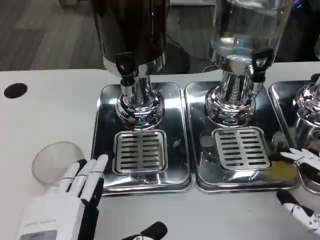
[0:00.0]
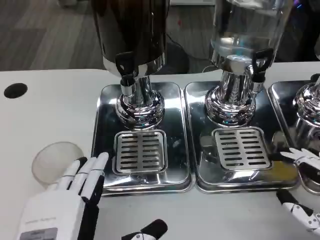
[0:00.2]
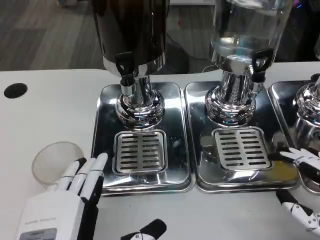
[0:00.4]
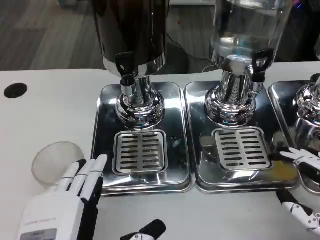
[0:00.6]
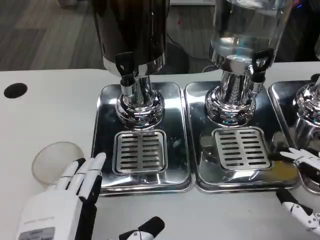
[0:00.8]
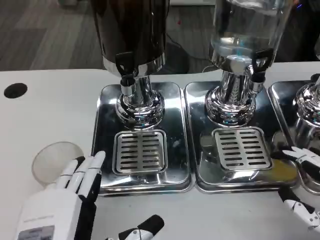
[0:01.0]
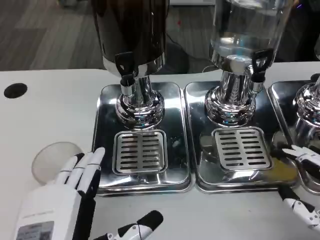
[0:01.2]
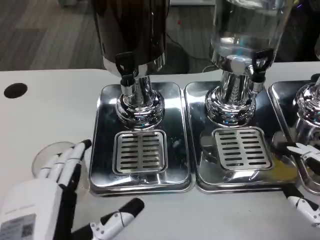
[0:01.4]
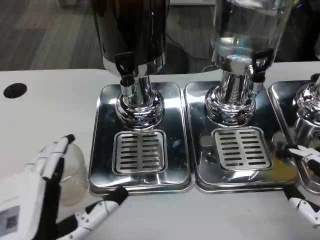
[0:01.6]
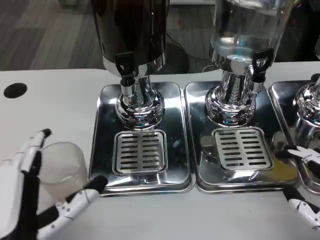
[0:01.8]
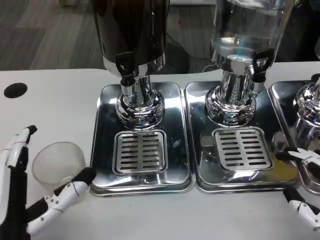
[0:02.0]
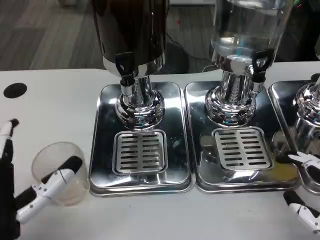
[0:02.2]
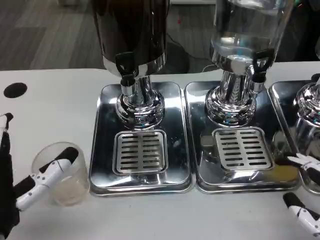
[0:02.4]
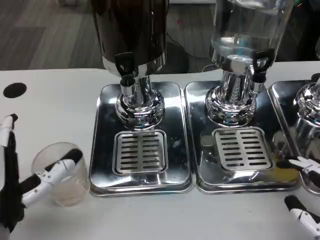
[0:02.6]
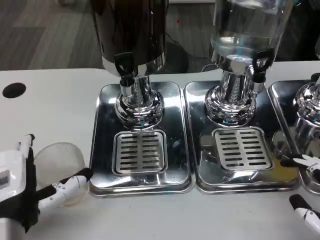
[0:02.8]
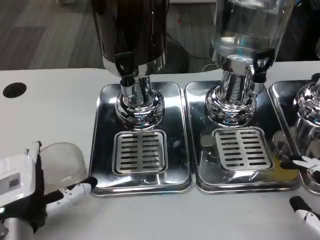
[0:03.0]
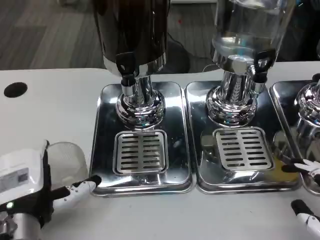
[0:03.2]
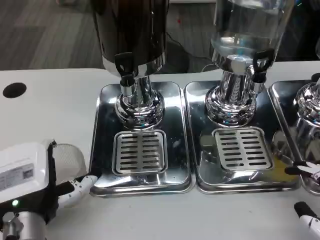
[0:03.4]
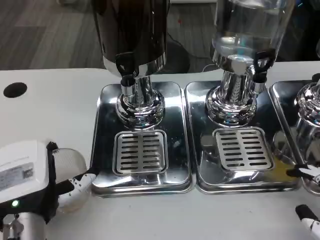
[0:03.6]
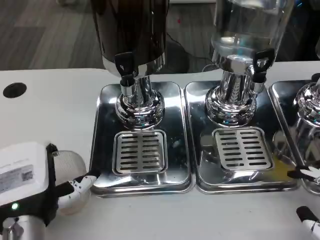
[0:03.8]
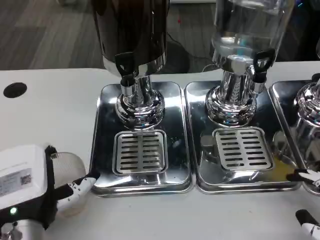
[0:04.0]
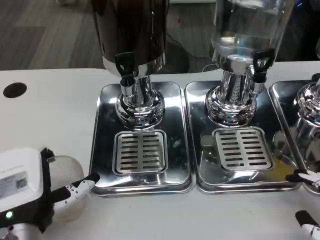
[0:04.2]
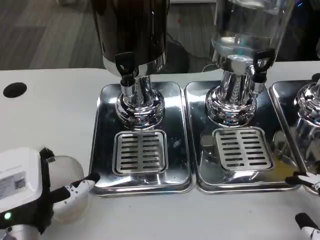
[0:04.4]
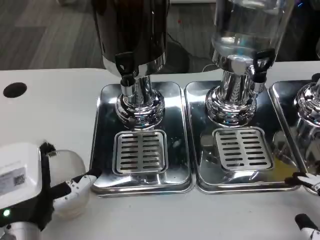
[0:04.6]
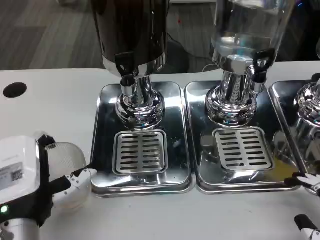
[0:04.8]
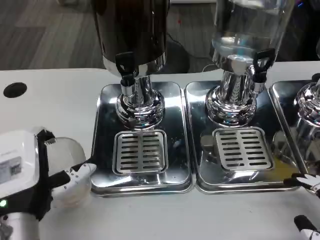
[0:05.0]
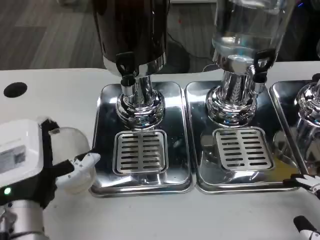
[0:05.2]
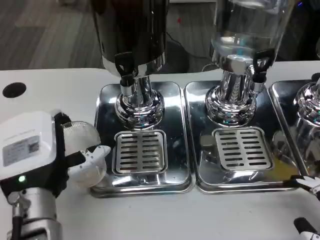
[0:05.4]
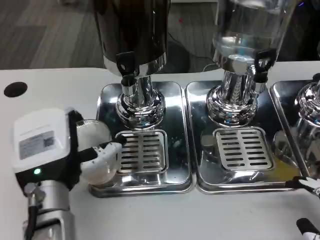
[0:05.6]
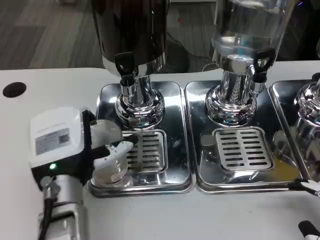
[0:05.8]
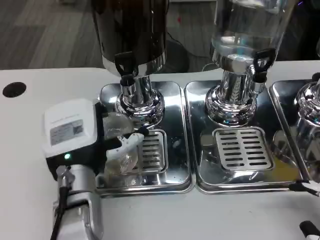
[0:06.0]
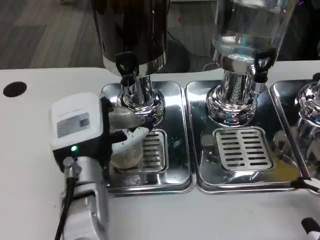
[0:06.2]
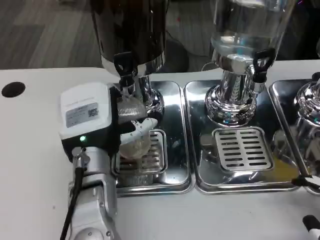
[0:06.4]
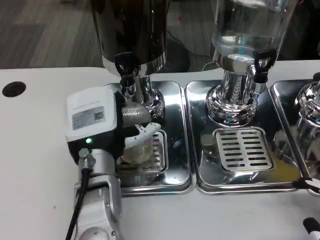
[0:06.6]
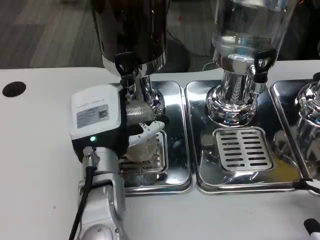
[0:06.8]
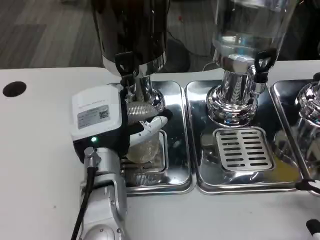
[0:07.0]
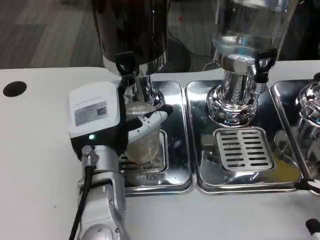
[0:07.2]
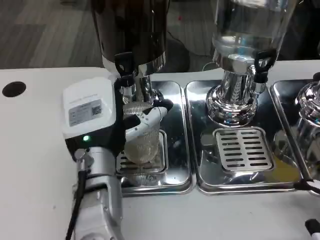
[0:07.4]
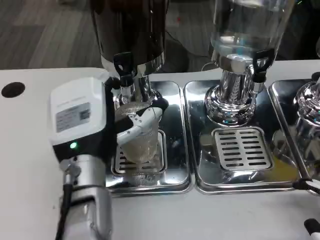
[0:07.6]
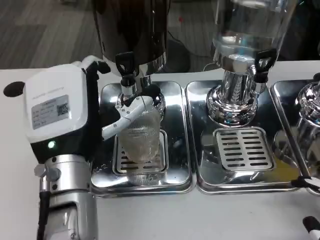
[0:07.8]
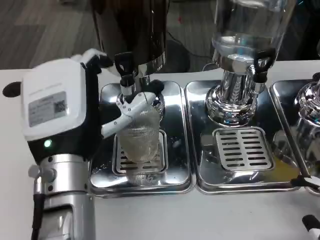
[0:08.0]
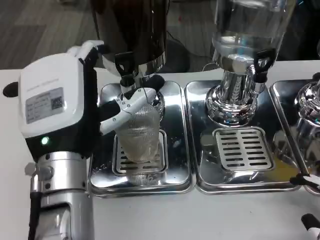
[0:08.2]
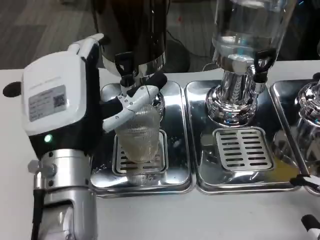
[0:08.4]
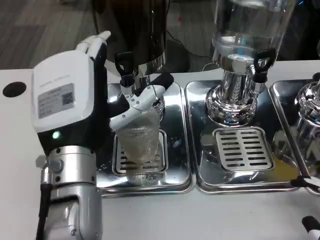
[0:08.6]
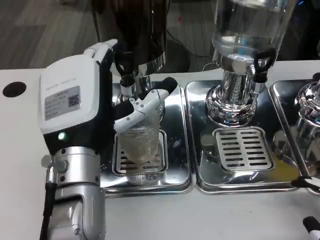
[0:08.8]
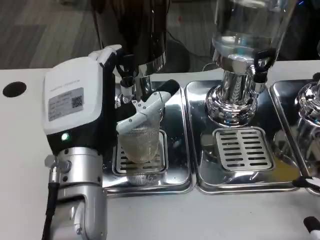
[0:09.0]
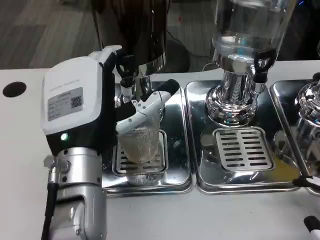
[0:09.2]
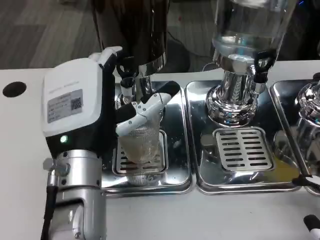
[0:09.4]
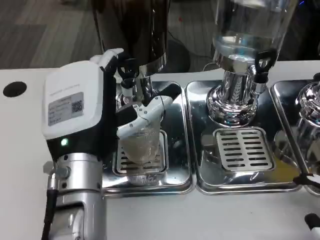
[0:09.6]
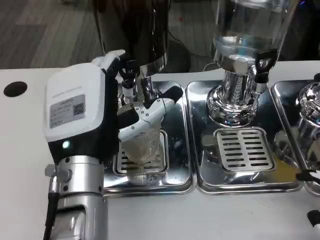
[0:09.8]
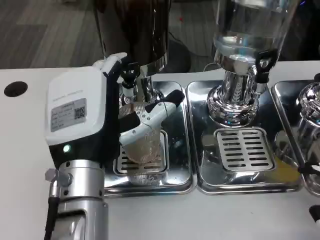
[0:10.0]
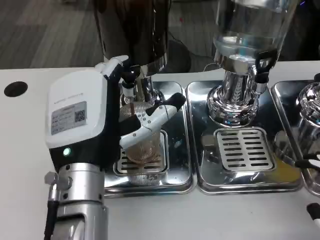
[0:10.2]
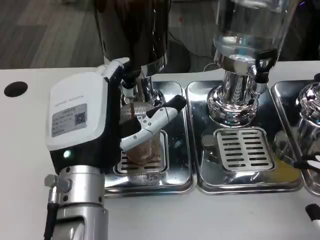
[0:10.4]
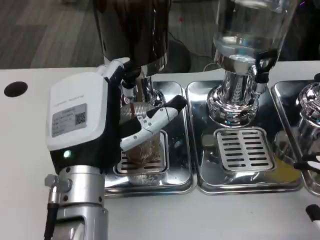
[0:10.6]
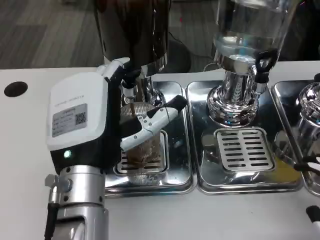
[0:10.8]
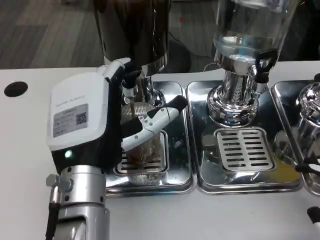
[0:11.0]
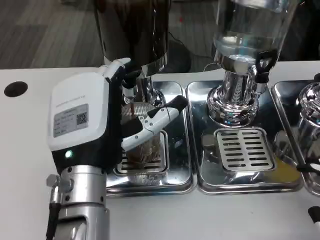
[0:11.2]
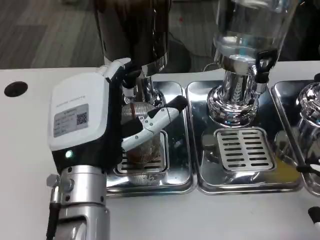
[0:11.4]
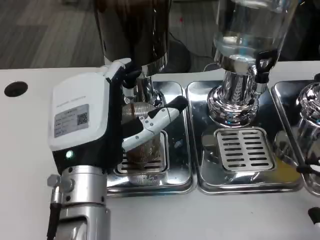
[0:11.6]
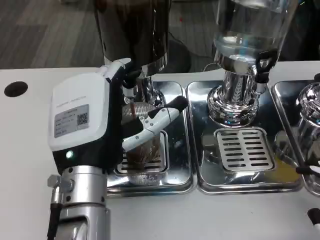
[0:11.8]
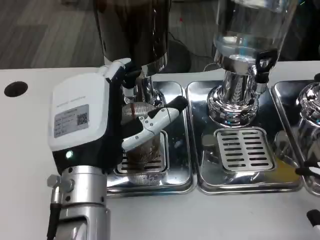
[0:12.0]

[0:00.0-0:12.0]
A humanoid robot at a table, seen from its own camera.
Task of the whole recording: Grasp the cup under the faucet to collect the drink, then remove the cup.
0:00.0 to 0:01.6: The hands move only a little.
0:01.6 to 0:03.0: The left hand is displaced forward by about 5 cm.
0:03.0 to 0:04.4: The hands make only small movements.
0:04.4 to 0:06.0: The left hand moves forward and to the right, some 10 cm.
0:06.0 to 0:07.6: There are only small adjustments of the hands.
0:10.4 to 0:12.0: Both hands stay put.

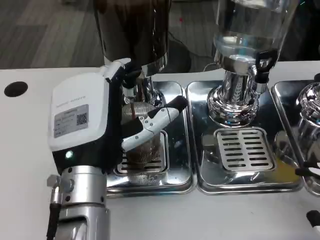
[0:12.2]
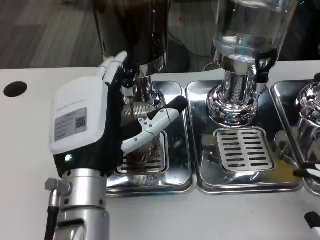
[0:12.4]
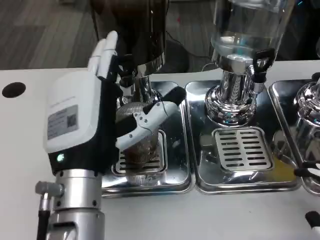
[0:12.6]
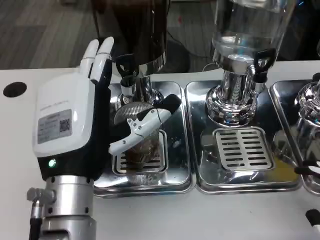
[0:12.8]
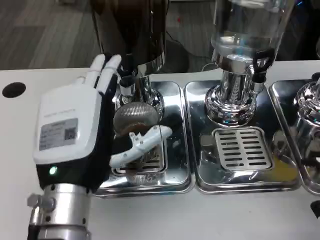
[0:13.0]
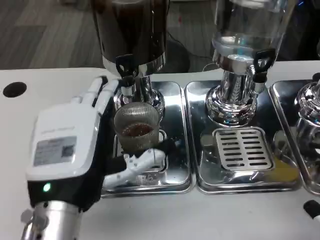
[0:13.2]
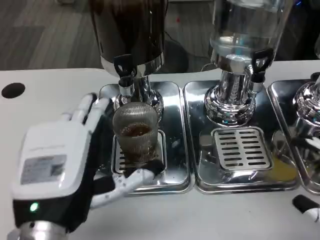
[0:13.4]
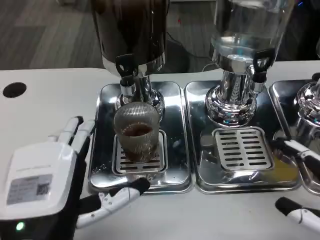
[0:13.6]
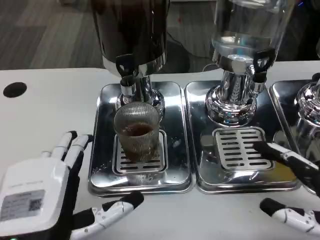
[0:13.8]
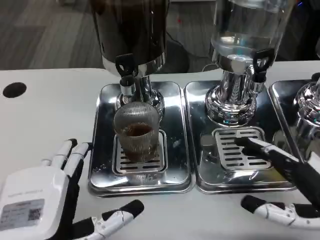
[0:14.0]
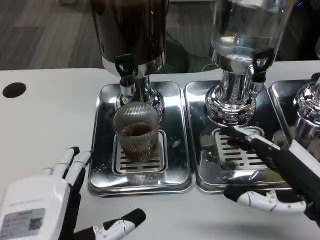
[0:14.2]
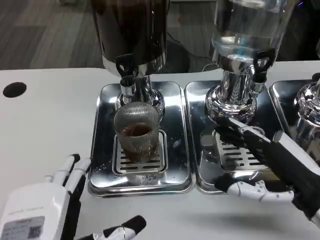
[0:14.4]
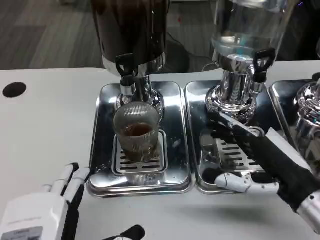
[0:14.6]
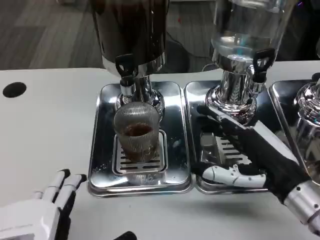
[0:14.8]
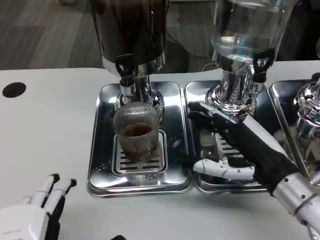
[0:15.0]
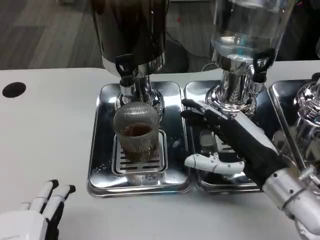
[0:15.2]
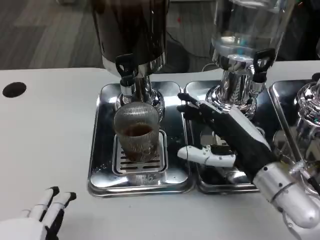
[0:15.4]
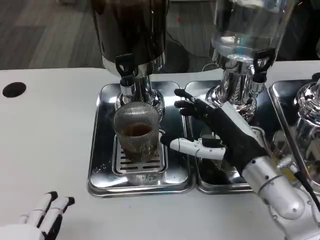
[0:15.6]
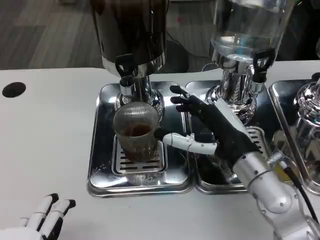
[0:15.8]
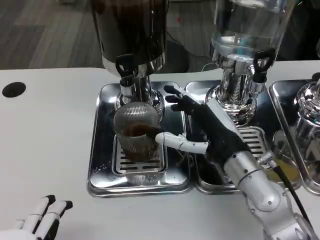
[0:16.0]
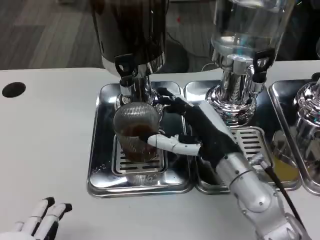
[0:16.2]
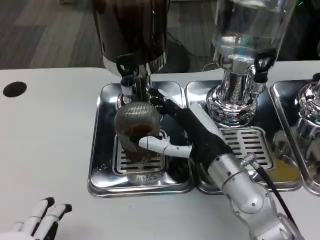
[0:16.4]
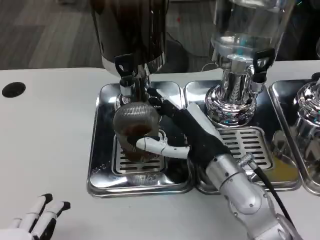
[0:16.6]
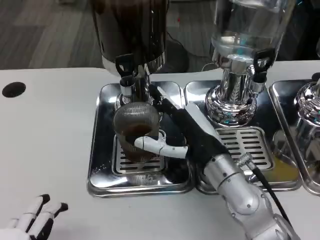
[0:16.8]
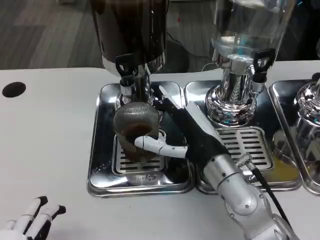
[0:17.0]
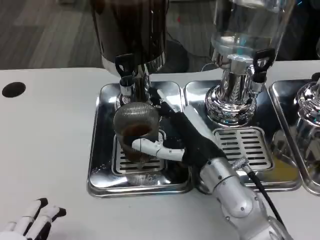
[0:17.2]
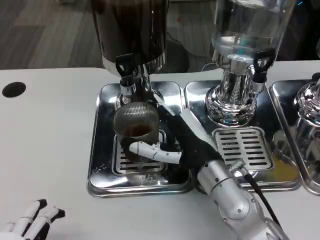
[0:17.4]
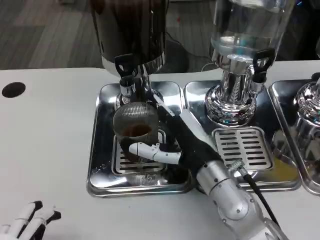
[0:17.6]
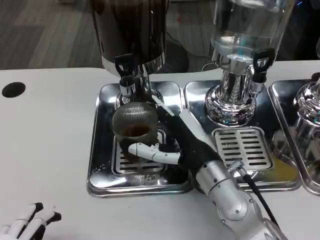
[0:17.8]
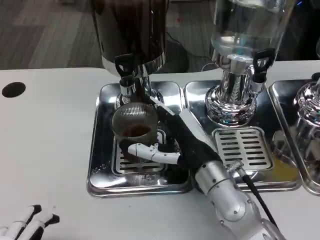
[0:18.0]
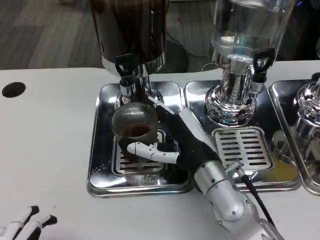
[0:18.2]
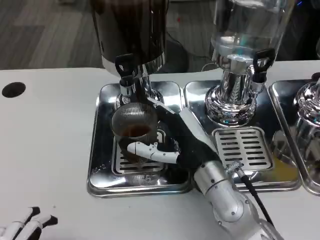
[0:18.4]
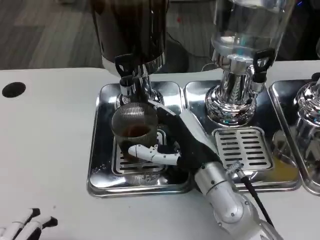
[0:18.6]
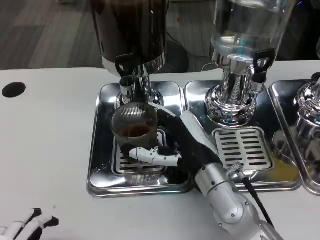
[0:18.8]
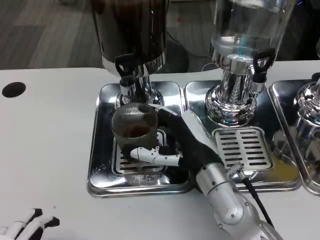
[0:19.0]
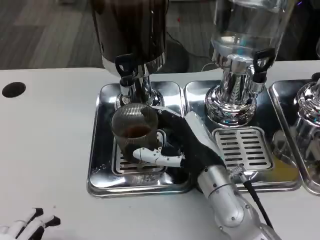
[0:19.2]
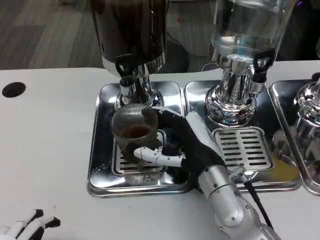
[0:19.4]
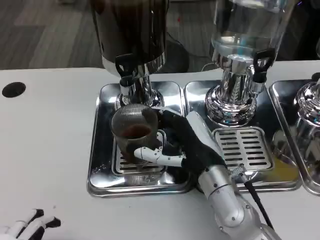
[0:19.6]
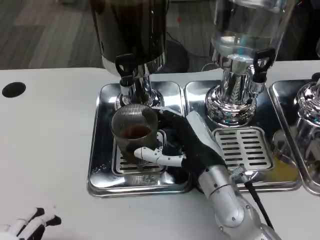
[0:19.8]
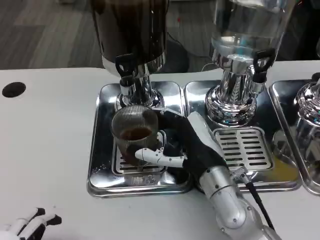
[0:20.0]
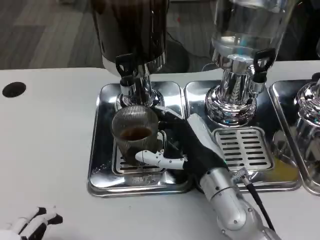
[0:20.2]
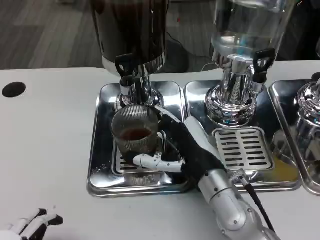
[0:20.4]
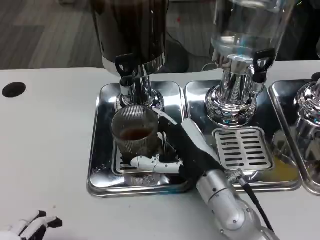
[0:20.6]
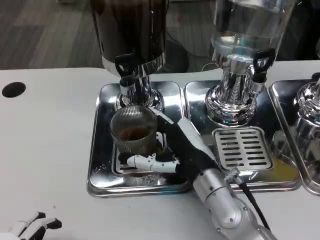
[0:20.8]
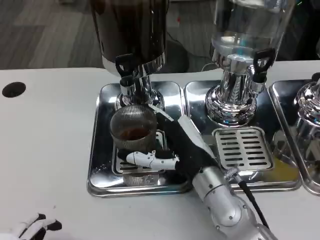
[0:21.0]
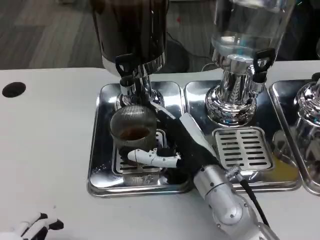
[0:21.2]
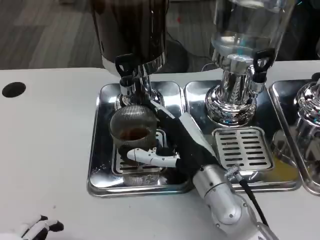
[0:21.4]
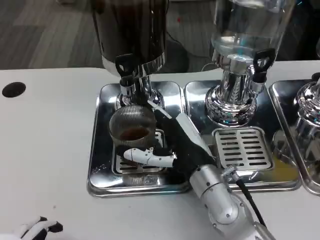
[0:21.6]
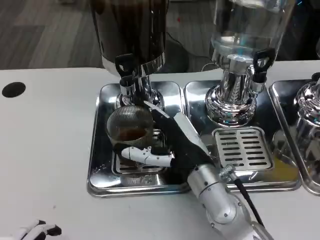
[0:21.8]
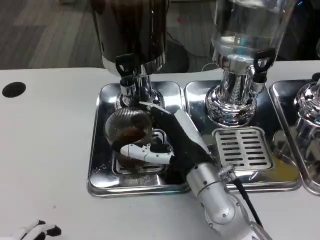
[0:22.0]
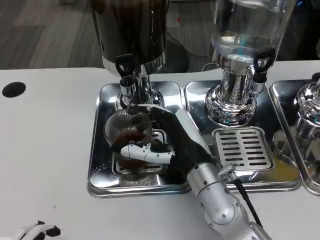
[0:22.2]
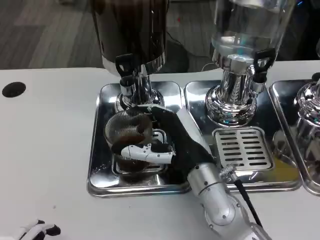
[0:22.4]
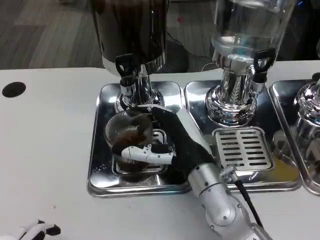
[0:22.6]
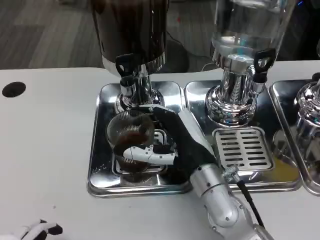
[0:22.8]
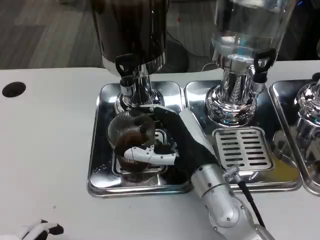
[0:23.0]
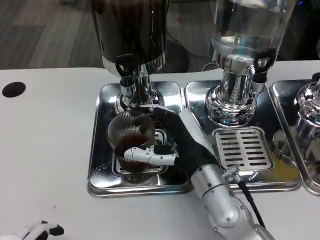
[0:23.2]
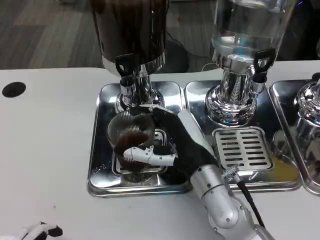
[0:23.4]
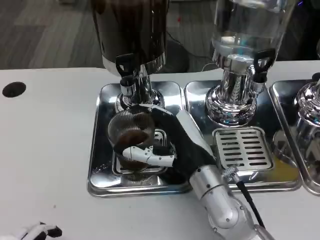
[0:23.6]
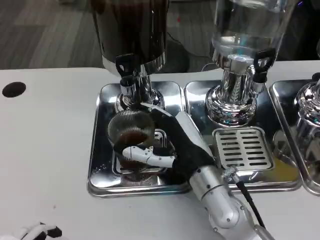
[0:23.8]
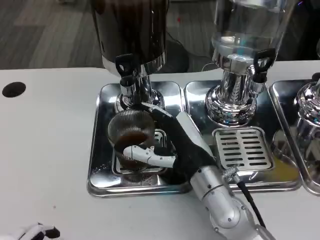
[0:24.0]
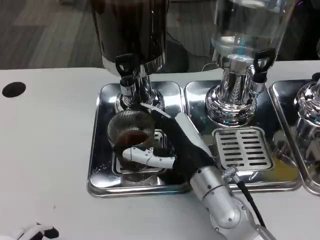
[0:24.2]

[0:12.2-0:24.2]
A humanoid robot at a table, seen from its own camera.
Task of the whole recording: Grasp the cup under the faucet to collect the drink, then remove the cup.
0:12.2 to 0:13.8: The right hand goes about 5 cm forward. Meanwhile the left hand shifts about 10 cm backward and to the left.
0:13.8 to 0:15.2: The right hand heads to the left and forward, covering about 15 cm; the left hand travels backward by roughly 5 cm.
0:15.2 to 0:16.6: The right hand heads to the left, covering about 10 cm.
0:16.6 to 0:18.2: The hands stay close to where they were, moving slightly.
0:18.2 to 0:19.8: The two hands keep their place.
0:19.8 to 0:21.2: The hands make only small movements.
0:21.2 to 0:24.2: Both hands stay about where they are.
